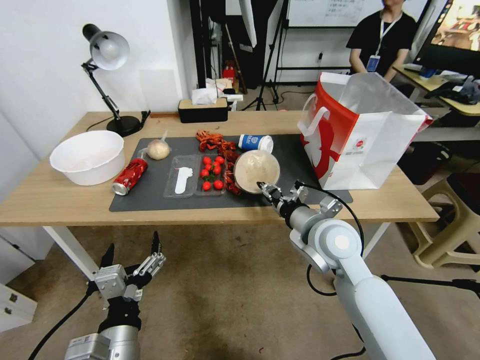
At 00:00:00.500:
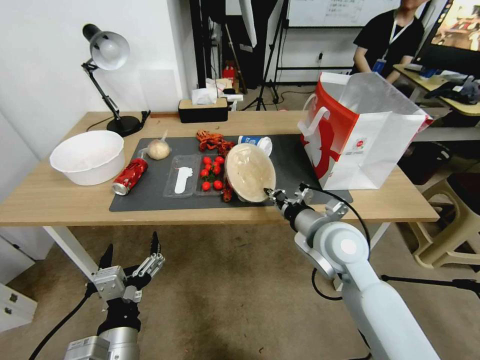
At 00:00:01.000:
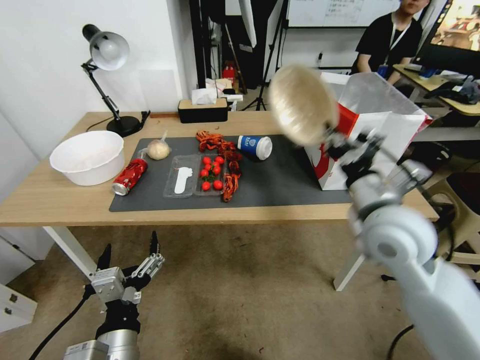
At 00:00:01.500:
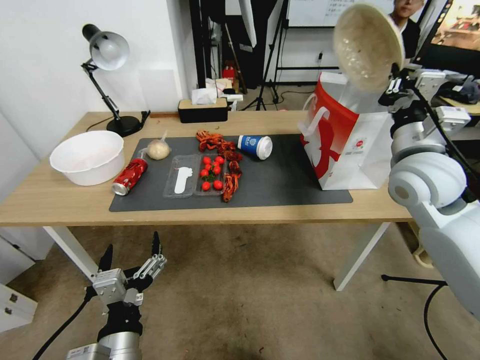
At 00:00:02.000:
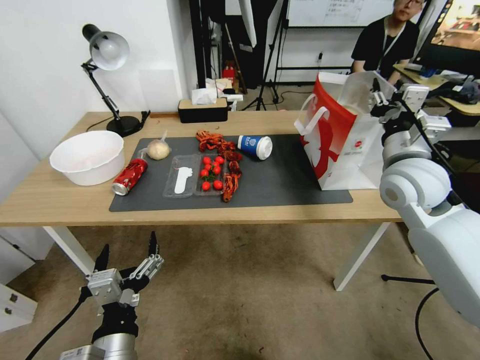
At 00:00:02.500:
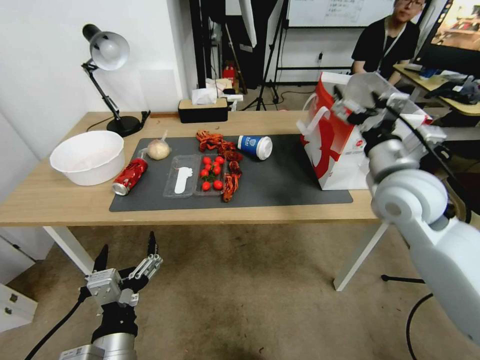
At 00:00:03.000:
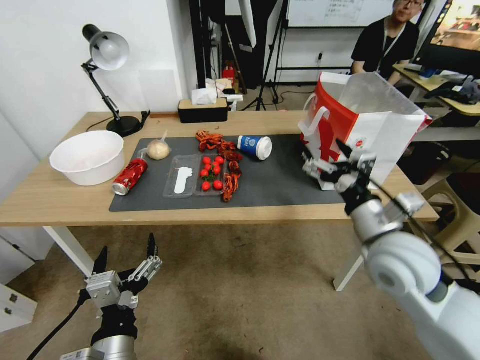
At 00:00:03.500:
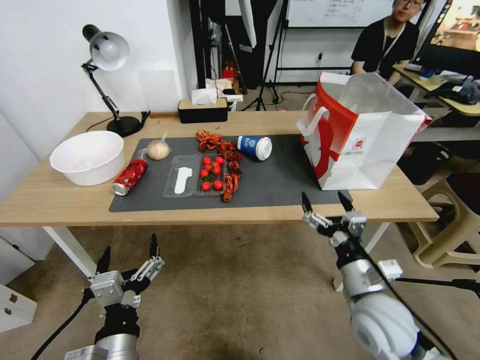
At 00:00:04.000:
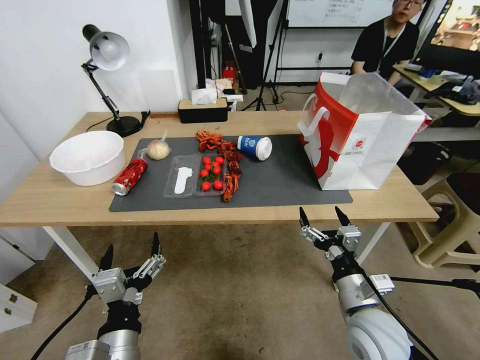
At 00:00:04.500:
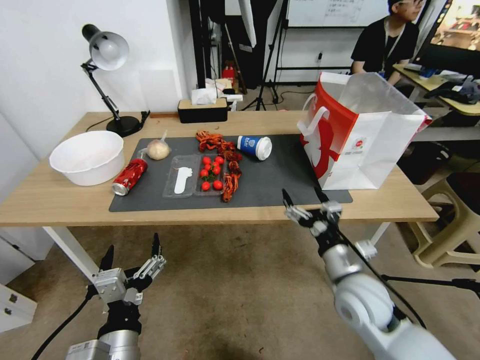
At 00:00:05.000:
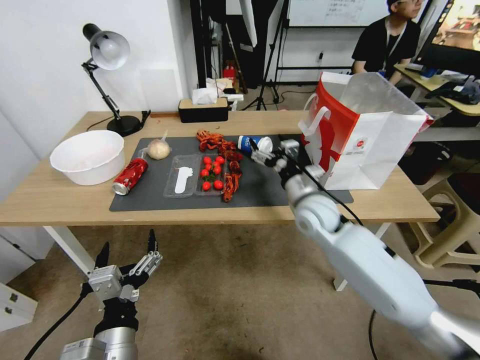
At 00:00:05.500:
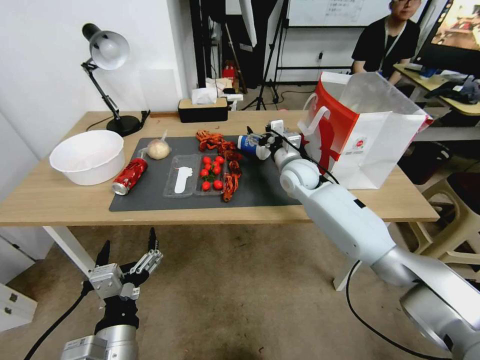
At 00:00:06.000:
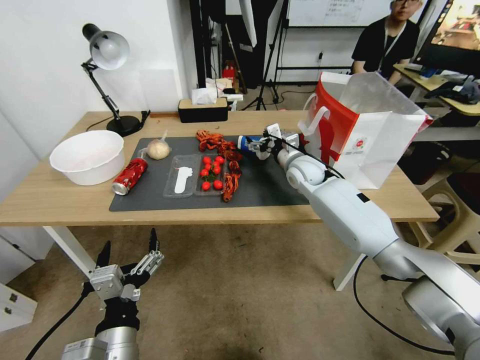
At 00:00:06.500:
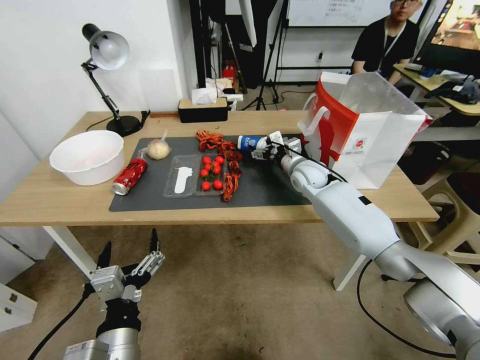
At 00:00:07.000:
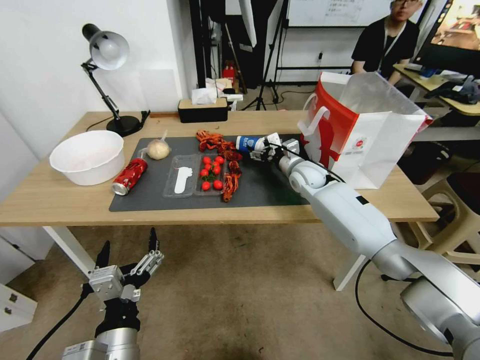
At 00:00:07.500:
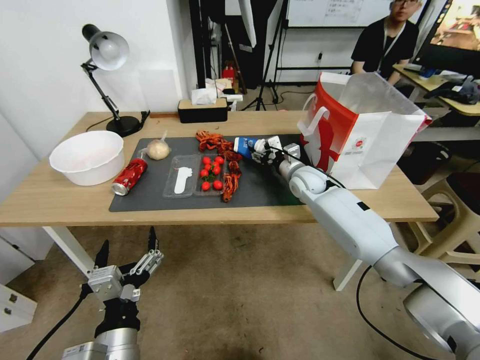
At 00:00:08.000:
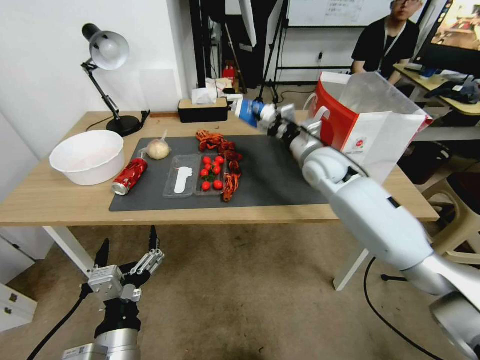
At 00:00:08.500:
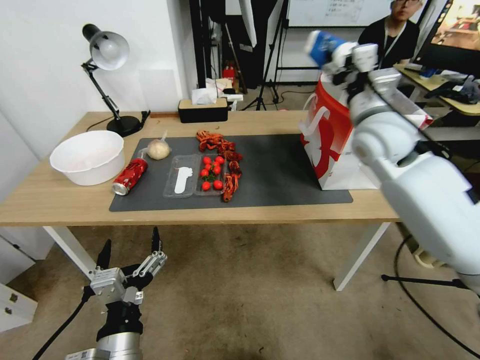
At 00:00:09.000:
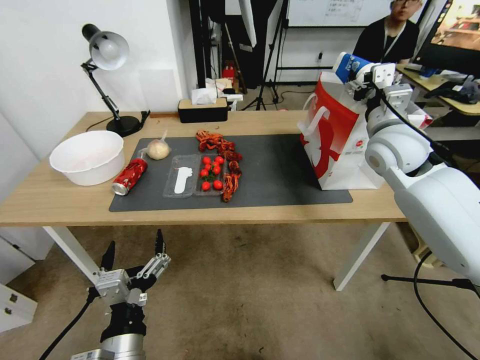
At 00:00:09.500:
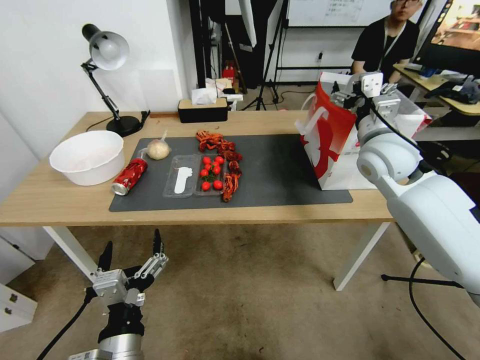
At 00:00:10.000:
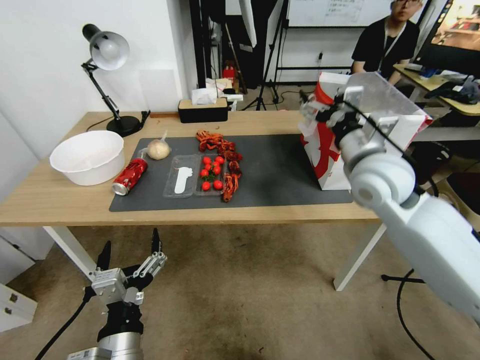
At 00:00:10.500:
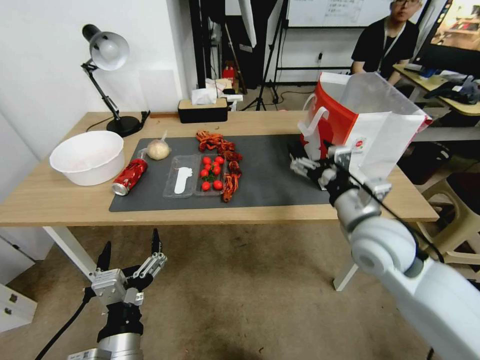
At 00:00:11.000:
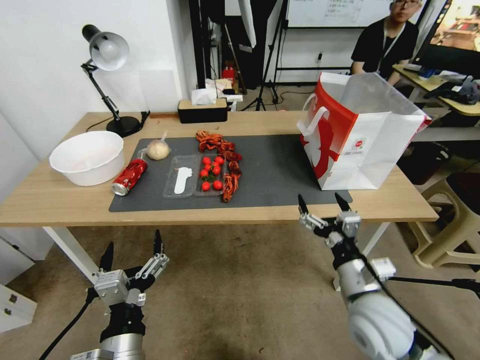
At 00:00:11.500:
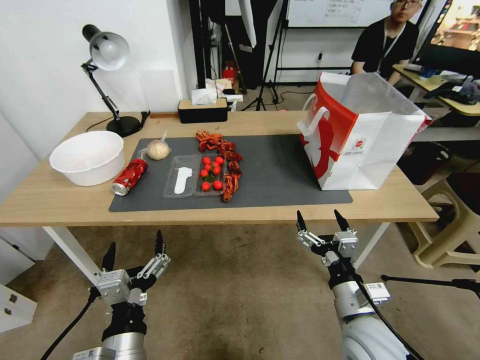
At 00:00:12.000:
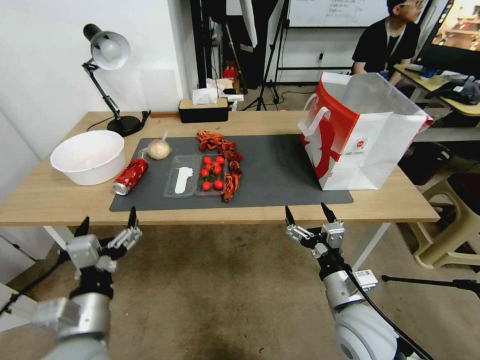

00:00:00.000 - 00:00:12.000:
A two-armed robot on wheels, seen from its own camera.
00:00:00.000 - 00:00:02.000: The right gripper moves to the right, upward and forward, approximately 20 cm, and closes, then opens again.
00:00:02.000 - 00:00:04.000: The right gripper shifts some 30 cm downward and backward, and opens up.
00:00:04.000 - 00:00:06.000: The right gripper shifts about 35 cm forward.
00:00:06.000 - 00:00:08.000: The right gripper heads upward, covering some 5 cm, and closes its fingers.
00:00:08.000 - 00:00:10.000: The right gripper heads backward and upward, covering about 15 cm, and opens.
00:00:10.000 - 00:00:12.000: The left gripper moves to the left, approximately 5 cm; the right gripper travels downward and backward by about 30 cm.

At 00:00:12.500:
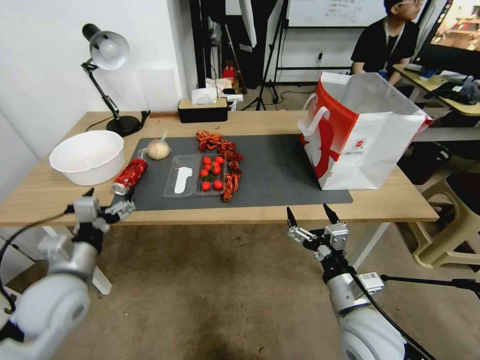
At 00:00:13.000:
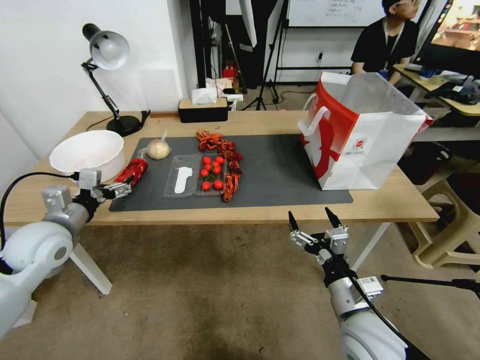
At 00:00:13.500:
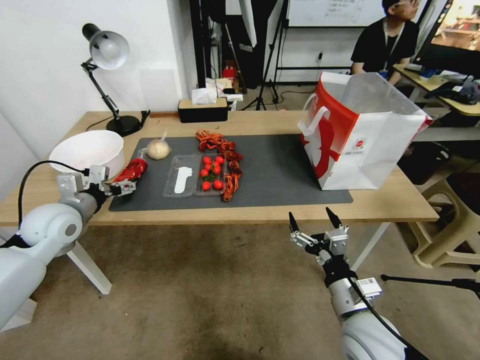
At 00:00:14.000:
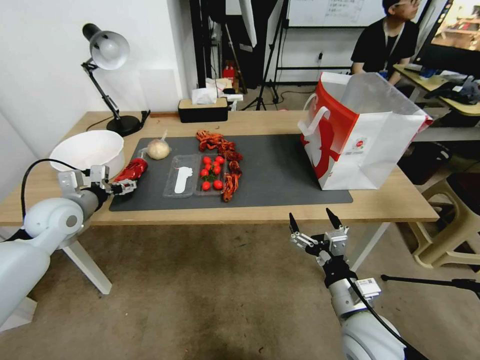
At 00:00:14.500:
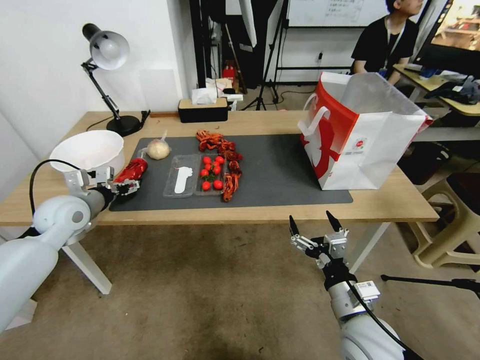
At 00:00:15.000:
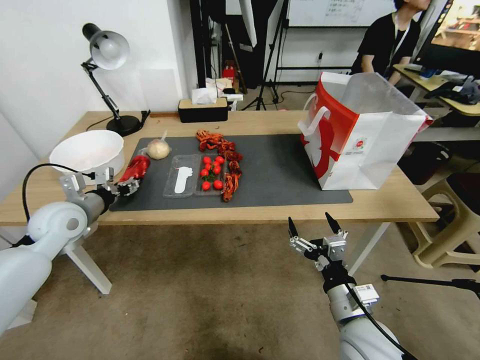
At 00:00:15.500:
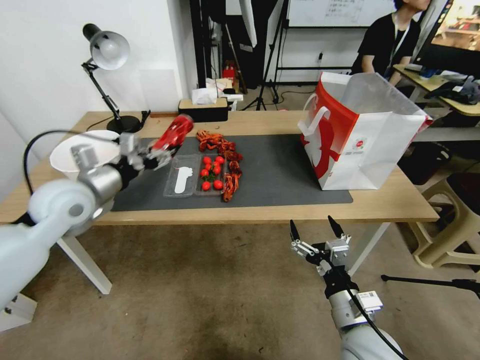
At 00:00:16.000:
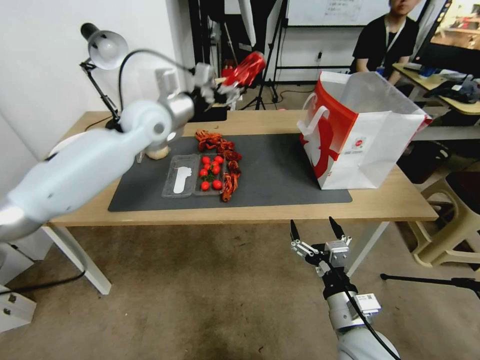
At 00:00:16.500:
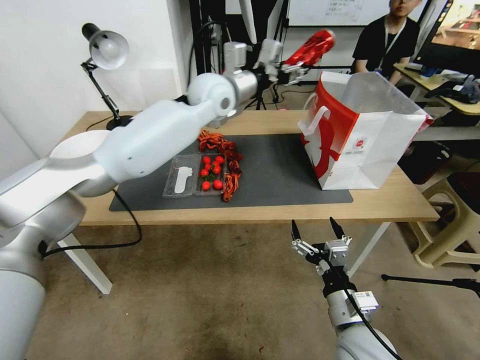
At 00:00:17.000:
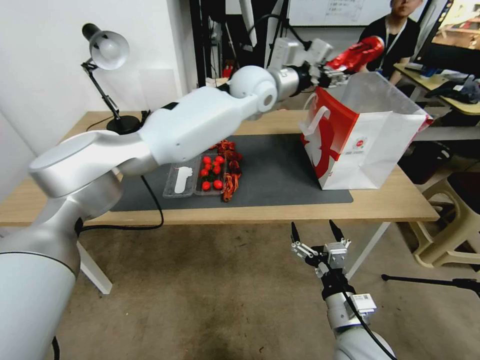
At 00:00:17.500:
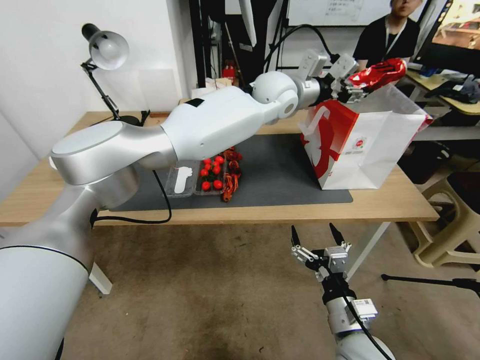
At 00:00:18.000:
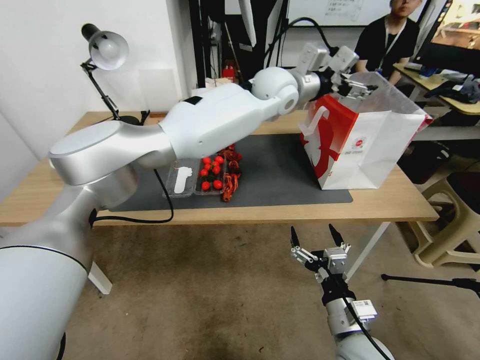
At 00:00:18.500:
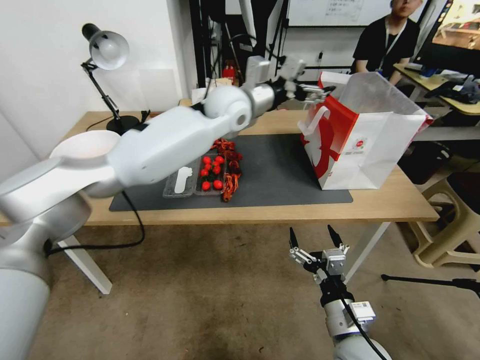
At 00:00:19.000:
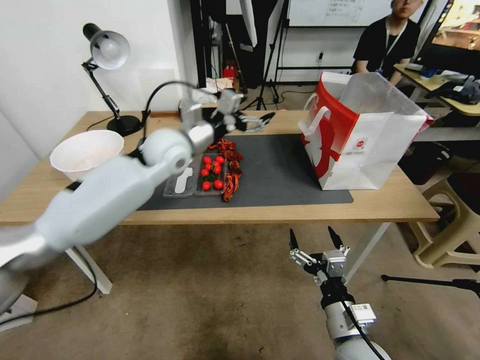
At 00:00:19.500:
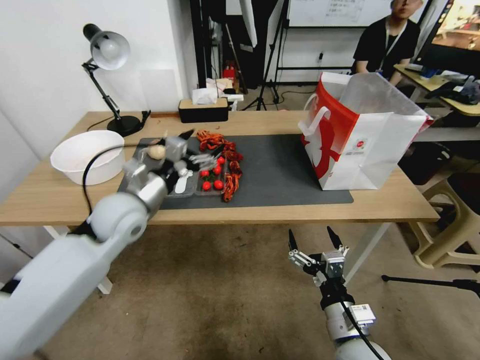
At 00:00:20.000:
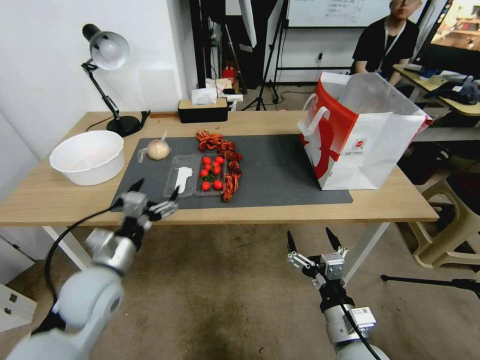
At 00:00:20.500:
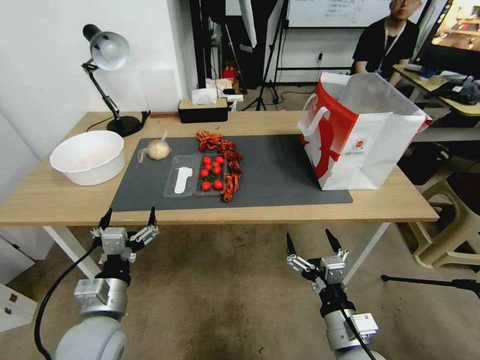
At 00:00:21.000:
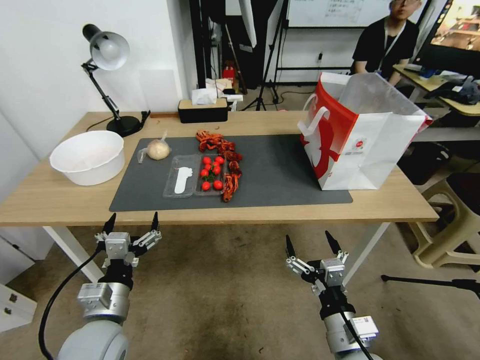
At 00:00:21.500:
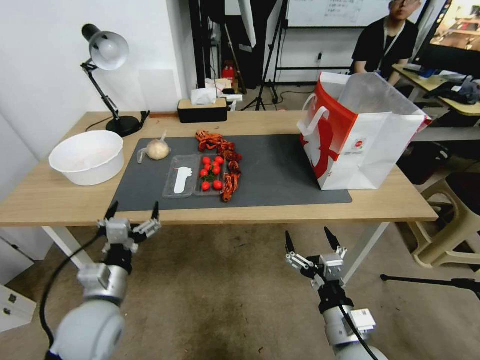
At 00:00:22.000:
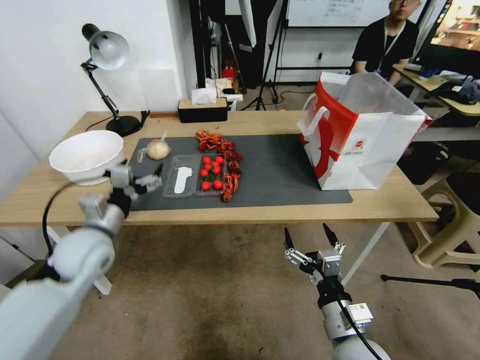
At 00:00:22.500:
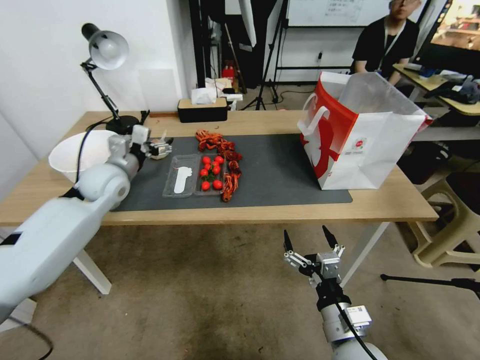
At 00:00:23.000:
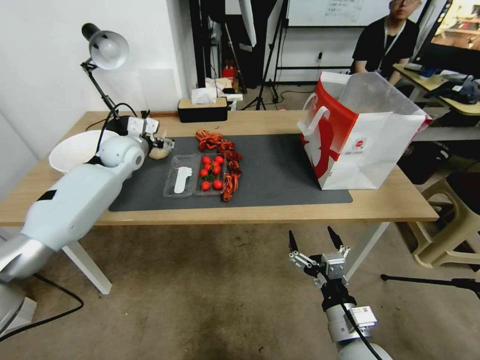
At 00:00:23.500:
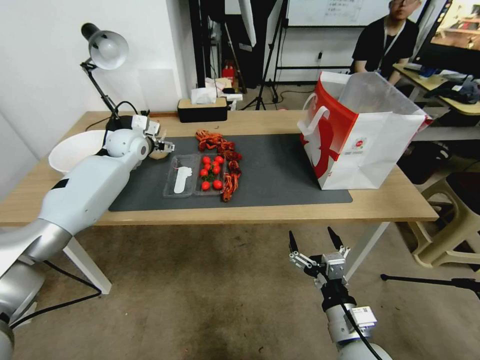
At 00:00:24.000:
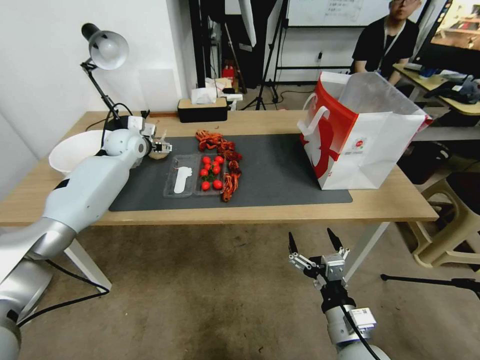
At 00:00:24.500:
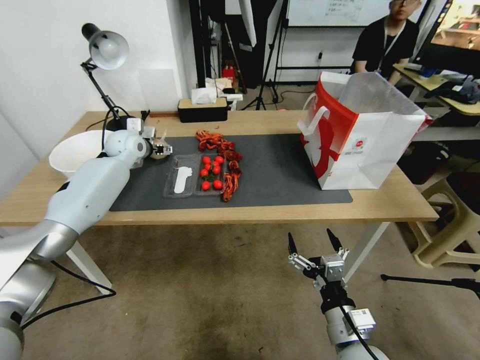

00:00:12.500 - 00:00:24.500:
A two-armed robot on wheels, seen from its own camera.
00:00:12.500 - 00:00:14.500: The left gripper is displaced forward by some 15 cm.
00:00:14.500 - 00:00:16.500: The left gripper moves to the right, upward and forward, approximately 30 cm.
00:00:16.500 - 00:00:18.500: The left gripper travels to the right by some 15 cm, and opens.
00:00:18.500 - 00:00:20.500: The left gripper shifts about 50 cm backward, downward and to the left.
00:00:20.500 - 00:00:22.500: The left gripper moves forward, roughly 30 cm.
00:00:22.500 - 00:00:24.500: The left gripper moves forward, about 15 cm.

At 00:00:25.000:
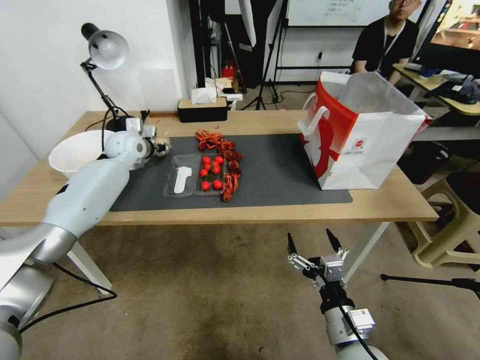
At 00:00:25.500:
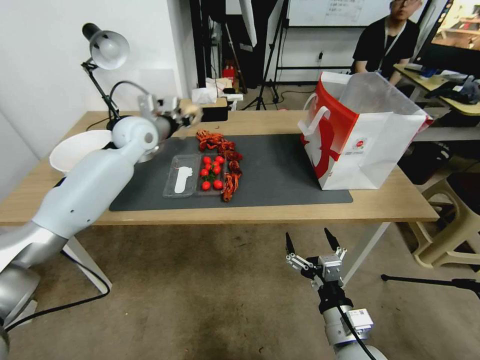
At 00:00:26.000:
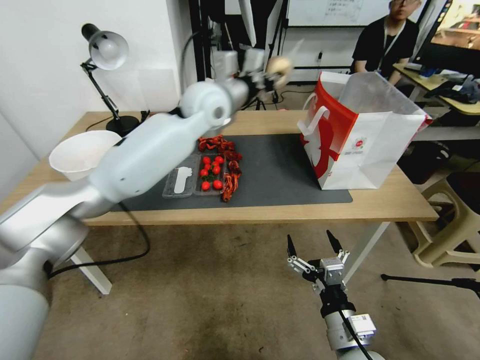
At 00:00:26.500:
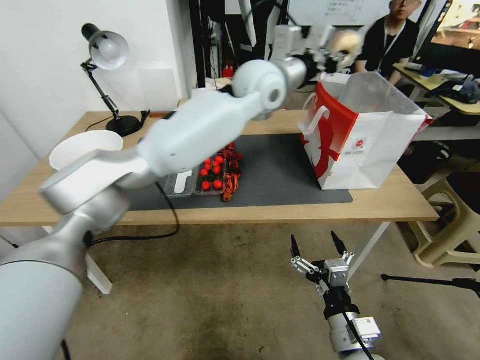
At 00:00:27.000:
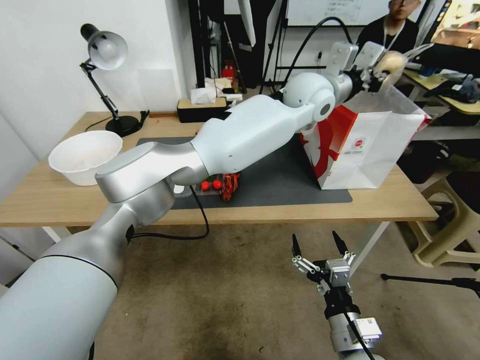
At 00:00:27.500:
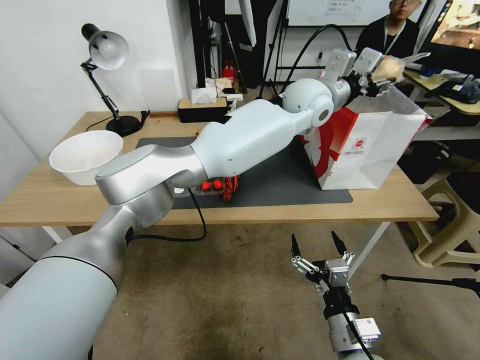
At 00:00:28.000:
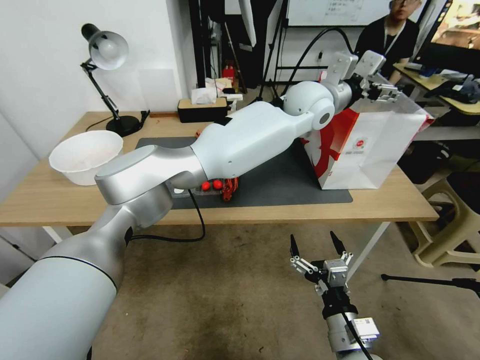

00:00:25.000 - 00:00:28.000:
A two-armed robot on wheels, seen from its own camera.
00:00:25.000 - 00:00:26.500: The left gripper heads to the right and upward, covering about 40 cm.
00:00:26.500 - 00:00:28.000: The left gripper travels to the right by approximately 10 cm, and opens its fingers.
